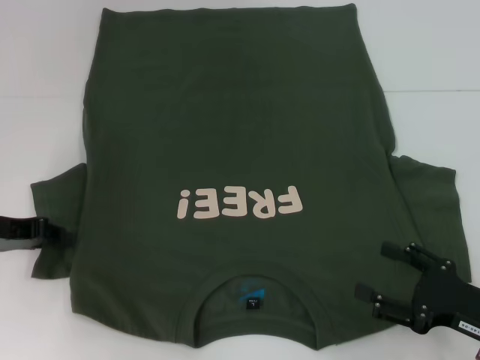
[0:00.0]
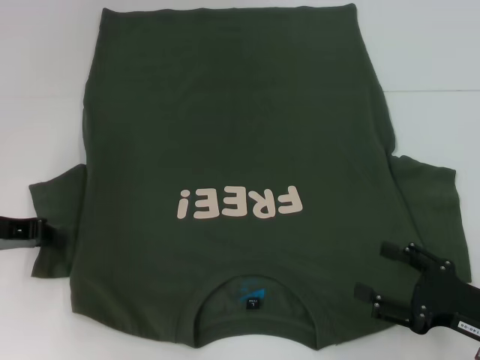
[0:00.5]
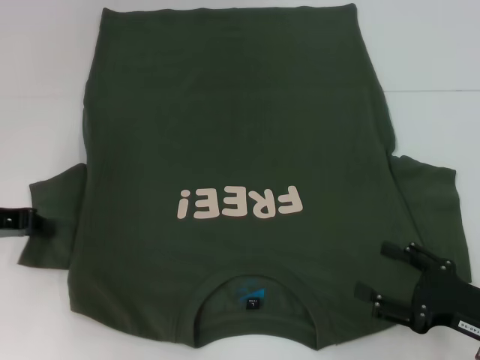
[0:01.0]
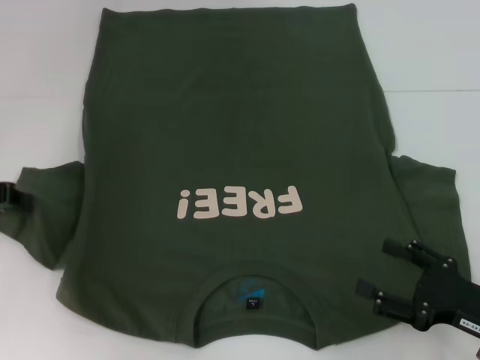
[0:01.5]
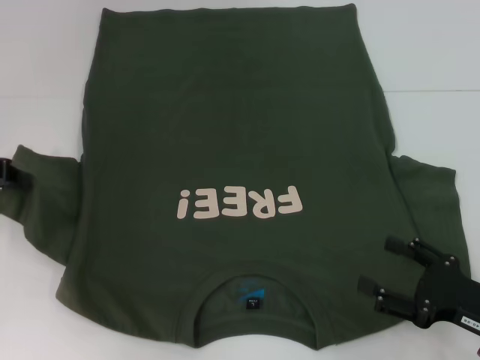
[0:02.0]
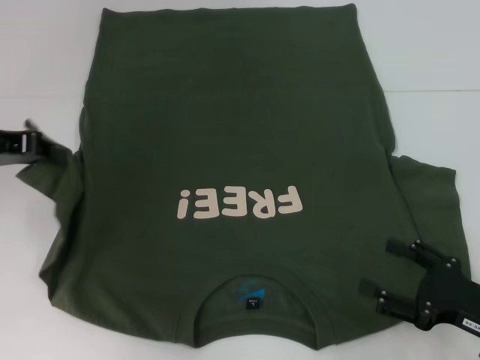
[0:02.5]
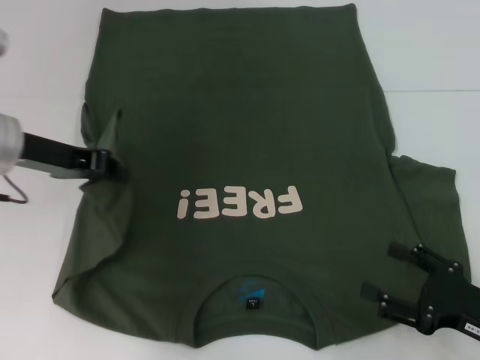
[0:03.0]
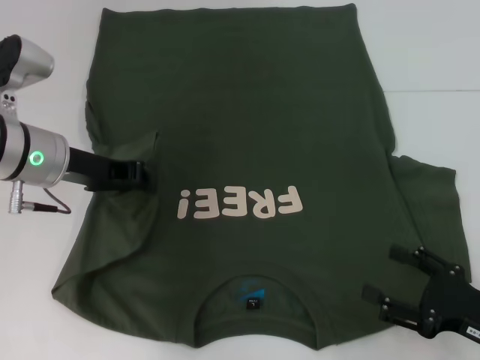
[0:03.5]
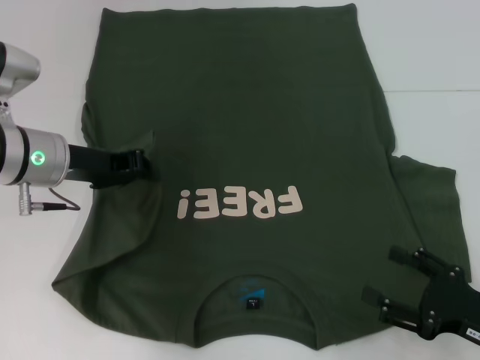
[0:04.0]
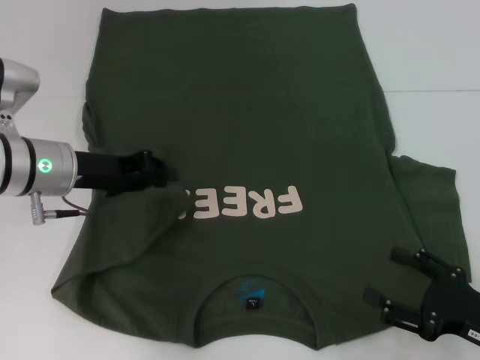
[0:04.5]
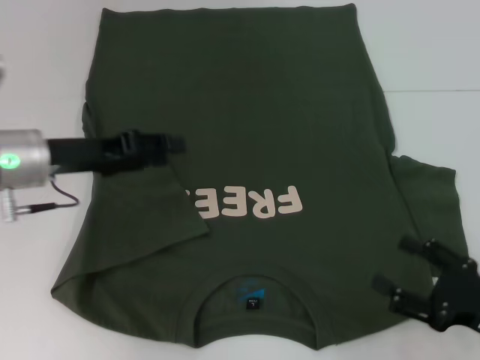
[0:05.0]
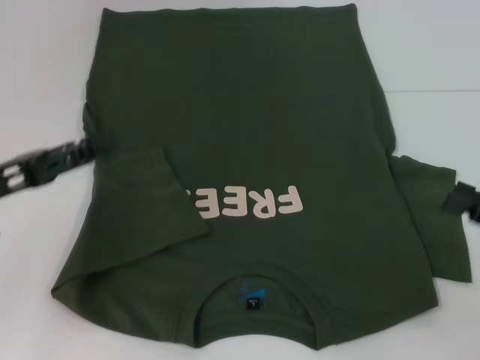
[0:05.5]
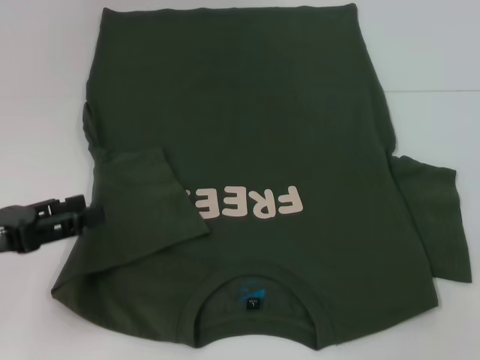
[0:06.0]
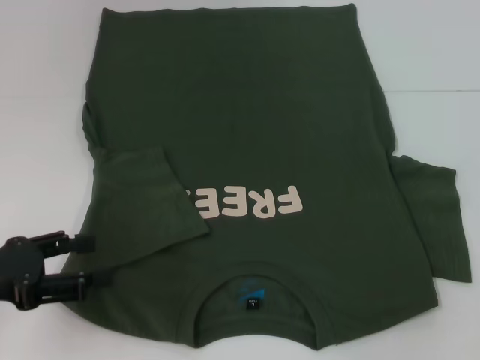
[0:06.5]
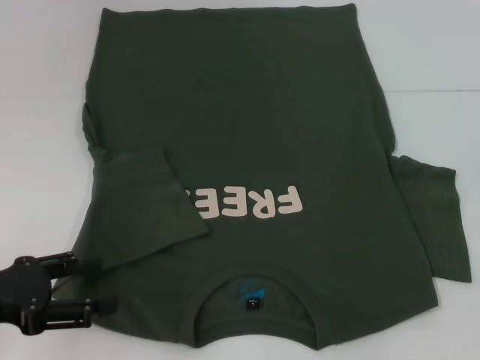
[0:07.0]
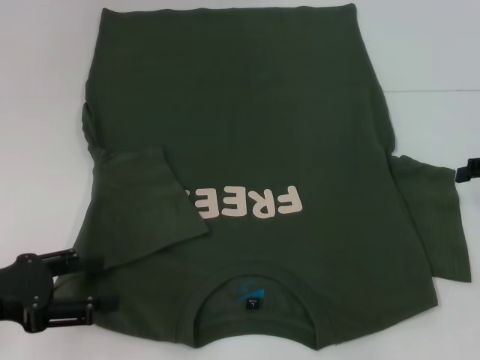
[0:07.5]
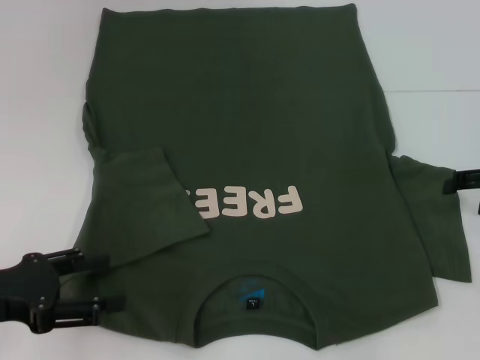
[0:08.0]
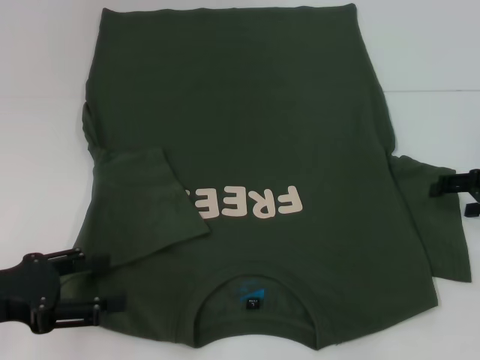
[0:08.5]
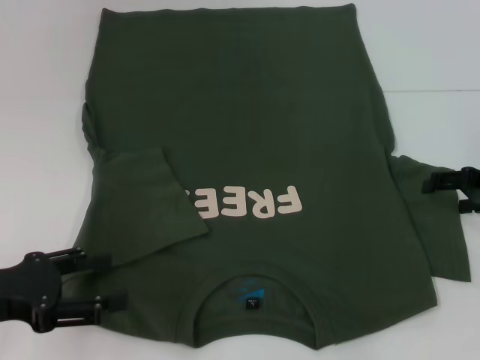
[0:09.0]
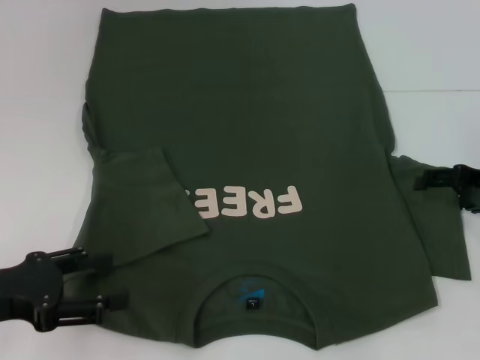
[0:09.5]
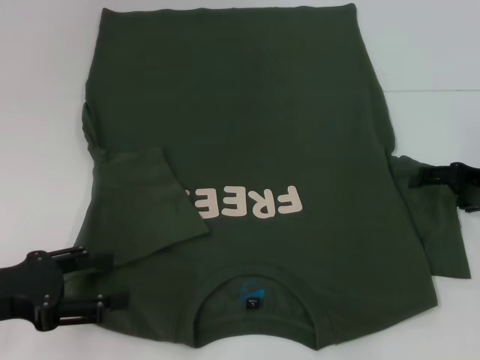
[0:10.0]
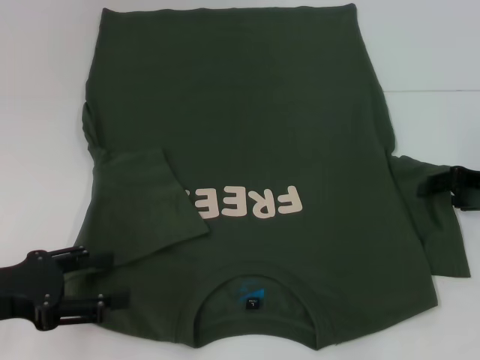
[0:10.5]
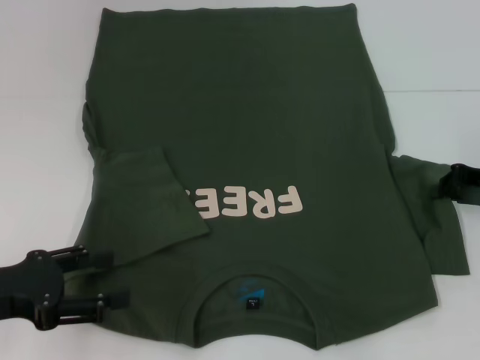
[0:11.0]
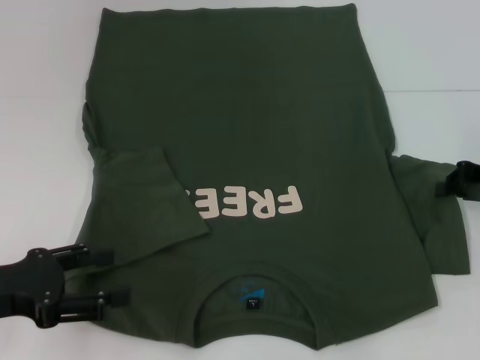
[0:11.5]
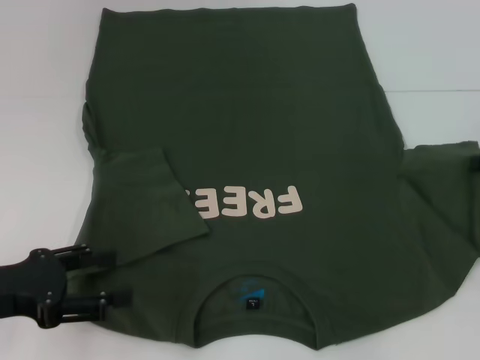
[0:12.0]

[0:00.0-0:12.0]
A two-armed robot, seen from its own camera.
Step, 0:00.0 to 0:04.5: Fold the bottom left sleeve with your left hand.
0:00.0 to 0:02.0: The left gripper goes approximately 5 cm upward, and closes its fingers.
0:02.0 to 0:04.0: The left gripper heads to the right, covering some 10 cm.
0:04.0 to 0:06.0: The left gripper goes approximately 15 cm backward and to the left, and opens, while the right gripper travels upward, to the right and forward by some 20 cm.
0:08.0 to 0:10.0: The grippers stay close to where they were, moving slightly.
0:10.0 to 0:12.0: The right gripper shifts by some 5 cm, and closes.

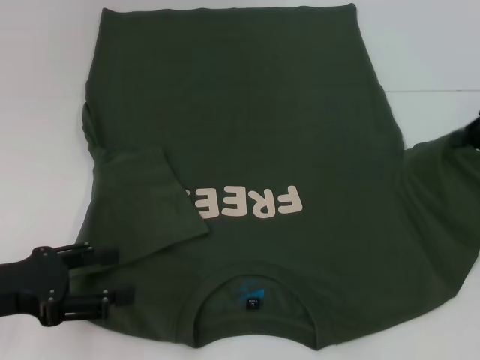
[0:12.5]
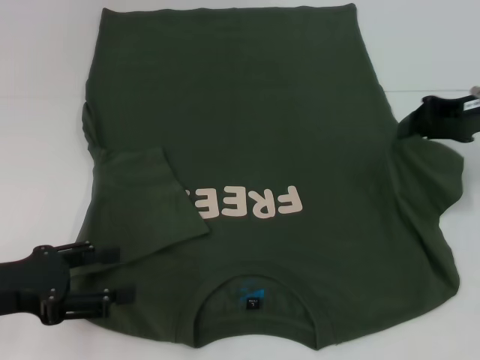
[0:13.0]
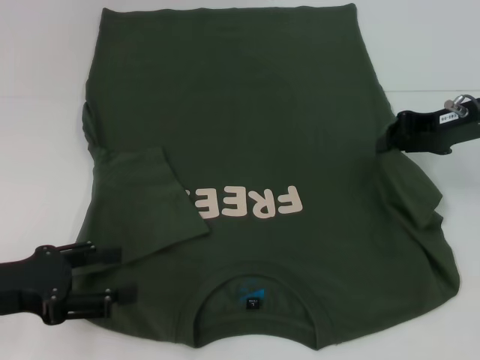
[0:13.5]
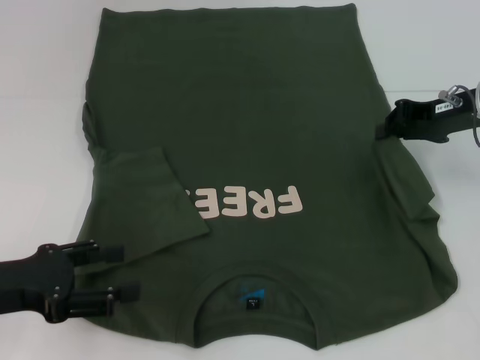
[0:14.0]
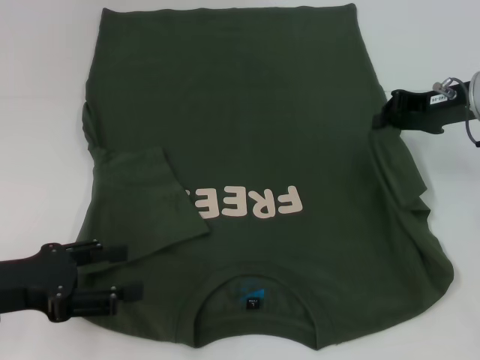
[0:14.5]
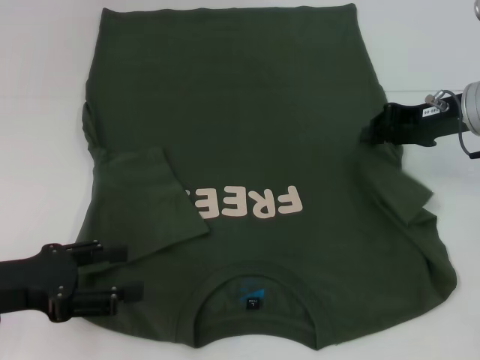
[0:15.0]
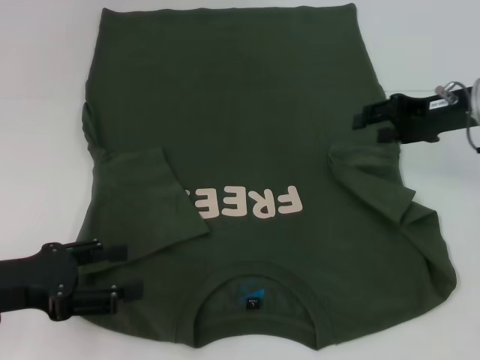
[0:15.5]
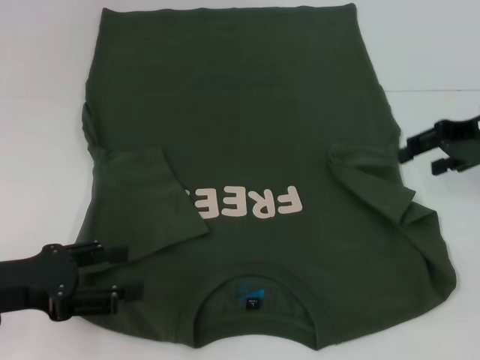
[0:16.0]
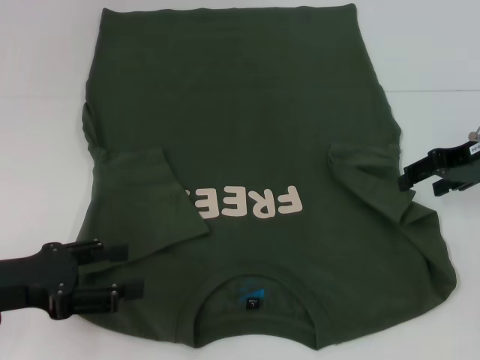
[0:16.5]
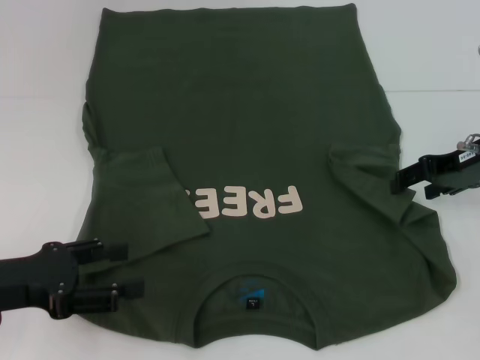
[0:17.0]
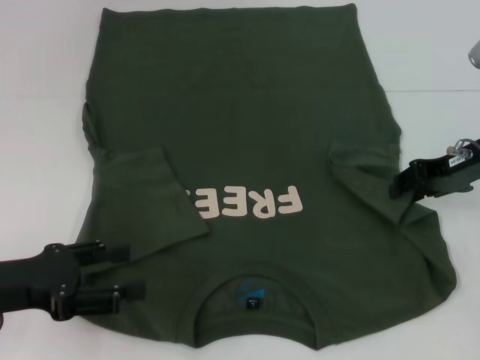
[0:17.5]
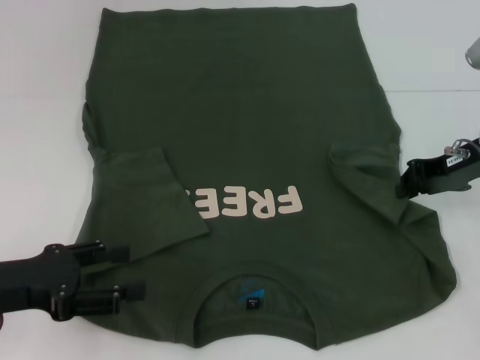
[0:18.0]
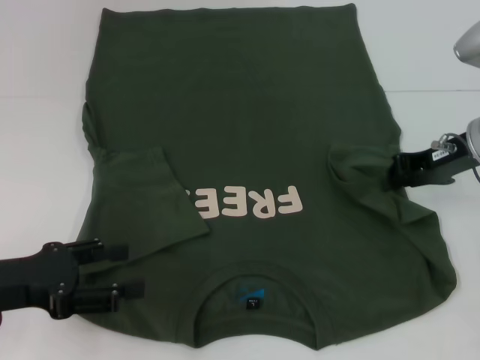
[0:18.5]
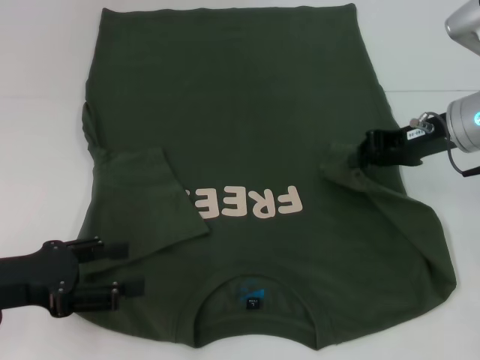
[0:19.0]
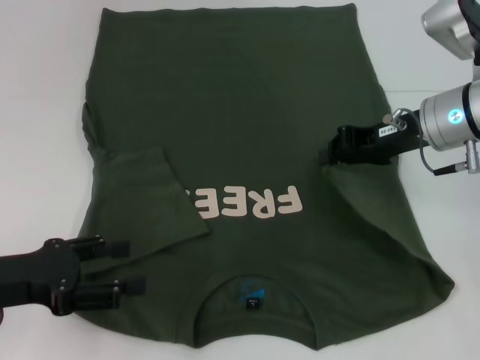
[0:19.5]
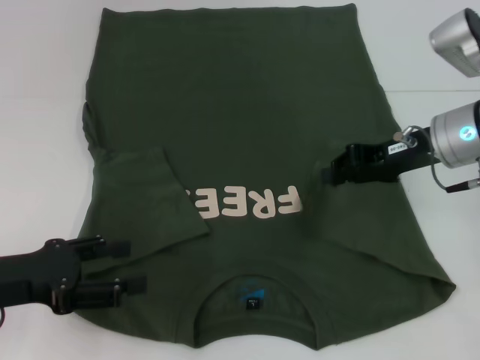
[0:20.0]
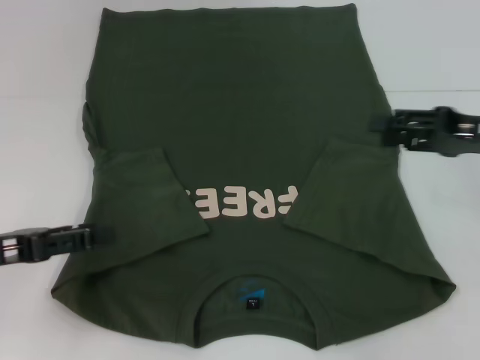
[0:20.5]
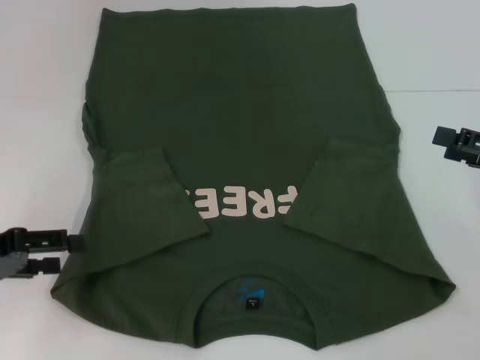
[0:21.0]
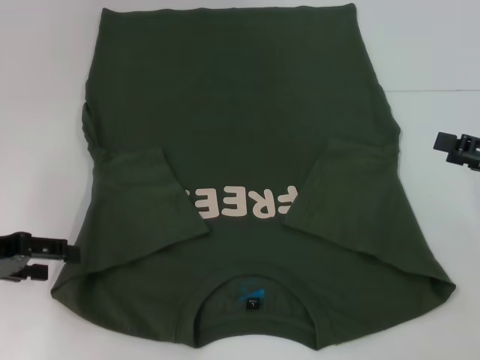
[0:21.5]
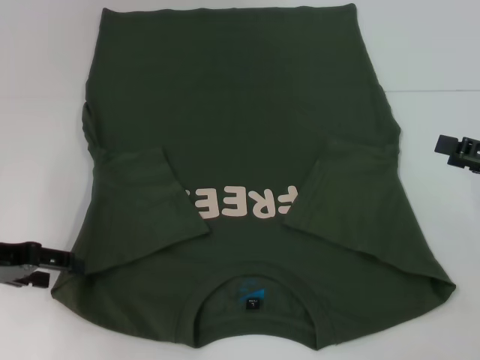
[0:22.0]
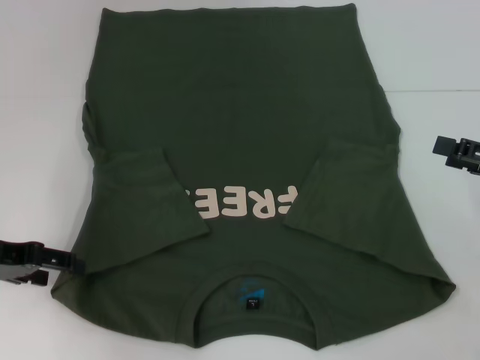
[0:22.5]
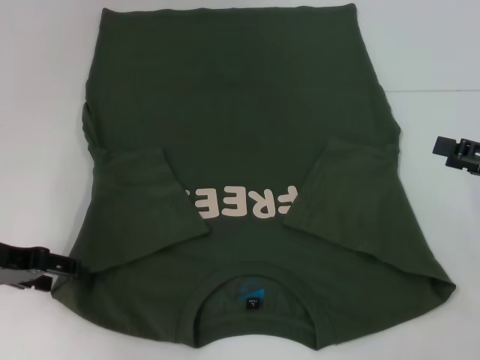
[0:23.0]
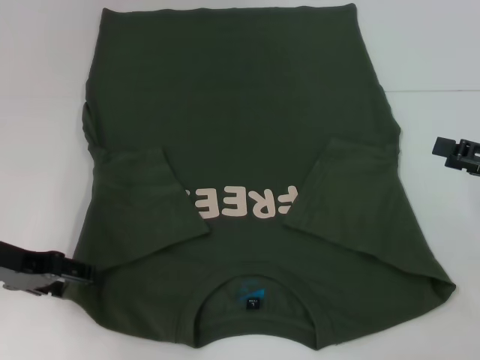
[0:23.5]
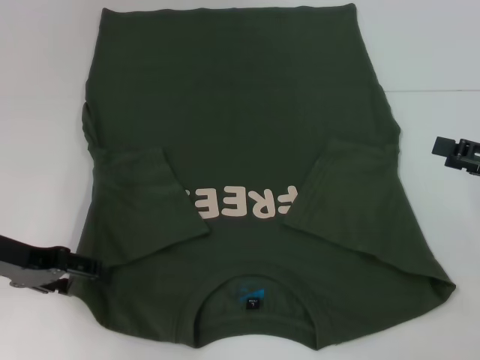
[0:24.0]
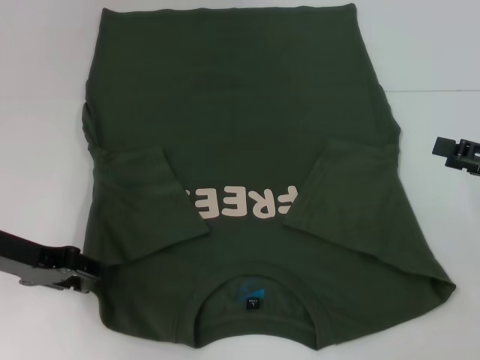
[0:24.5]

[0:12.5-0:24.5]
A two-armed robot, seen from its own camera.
Step, 0:12.5 to 0:20.0: Fold the bottom right sleeve with your right hand.
0:12.5 to 0:14.5: The right gripper travels to the left by some 10 cm.
0:14.5 to 0:16.5: The right gripper opens up.
0:16.5 to 0:18.5: The right gripper closes.
0:18.5 to 0:20.5: The right gripper shifts approximately 10 cm backward and to the right, and opens.
0:20.5 to 0:22.5: The left gripper moves forward, roughly 5 cm. Meanwhile the right gripper shifts by approximately 5 cm, and opens its fingers.
0:22.5 to 0:24.5: The grippers stay close to where they were, moving slightly.

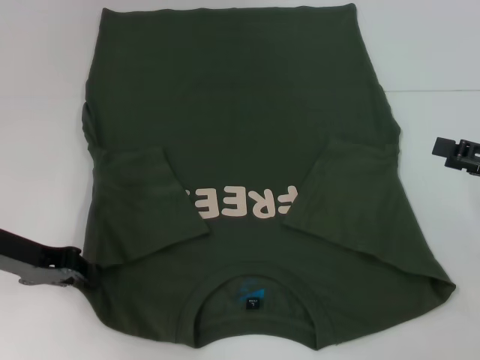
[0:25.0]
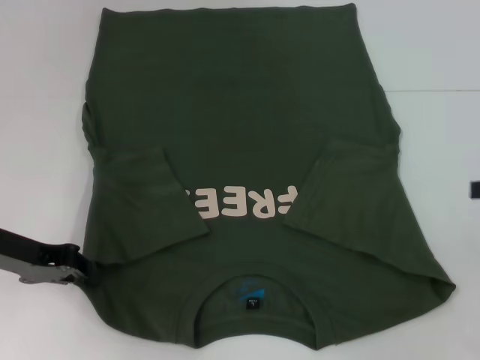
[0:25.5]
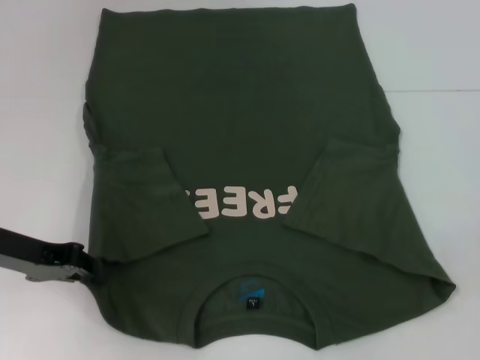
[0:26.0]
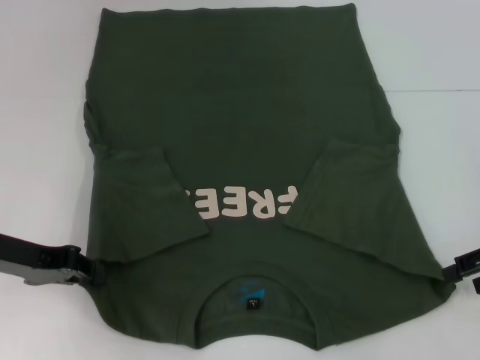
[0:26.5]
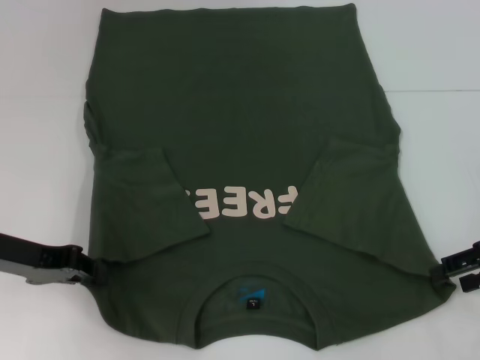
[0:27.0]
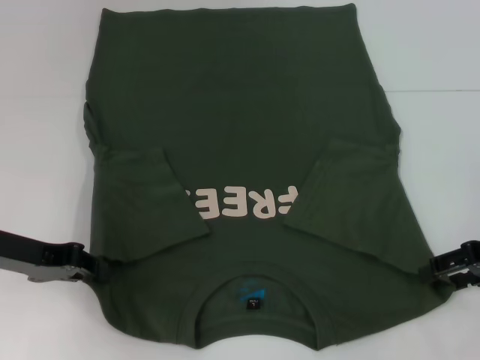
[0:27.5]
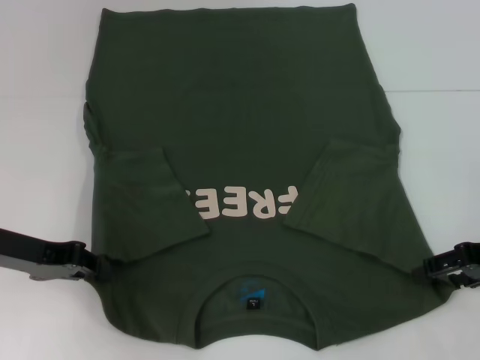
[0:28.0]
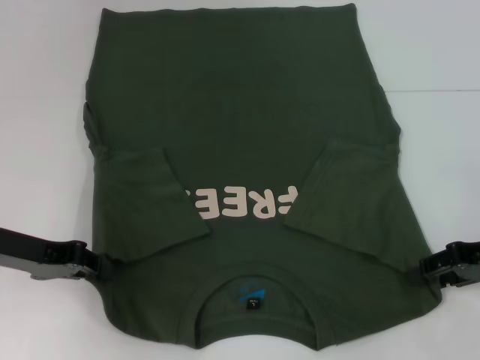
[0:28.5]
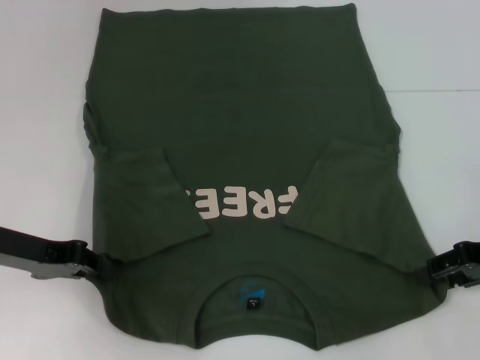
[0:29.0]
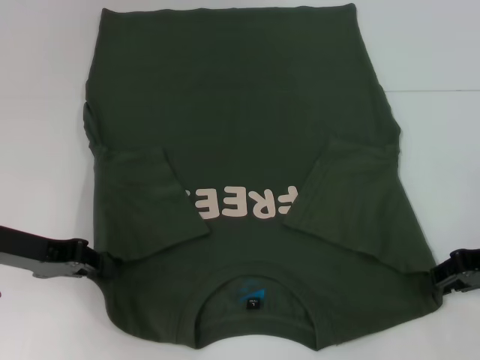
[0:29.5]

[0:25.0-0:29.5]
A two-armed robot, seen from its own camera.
0:27.0 to 0:29.5: The grippers make only small movements.
